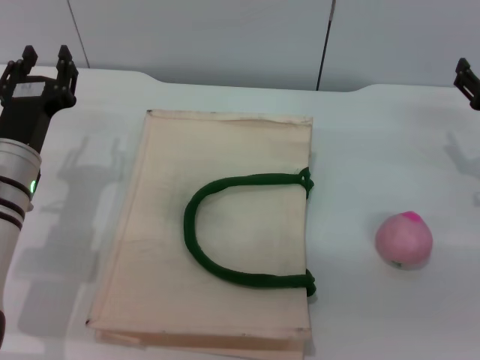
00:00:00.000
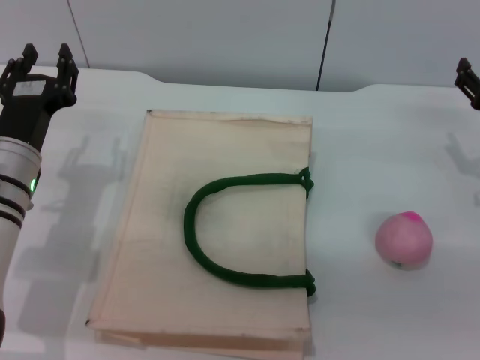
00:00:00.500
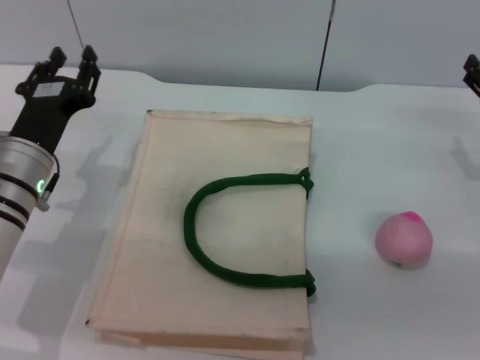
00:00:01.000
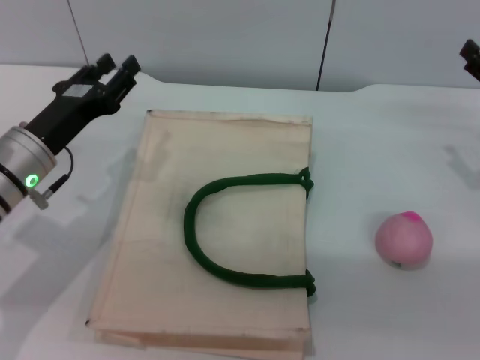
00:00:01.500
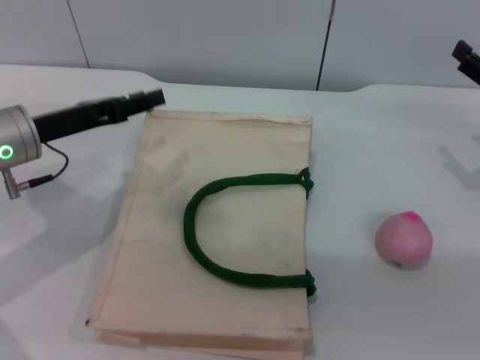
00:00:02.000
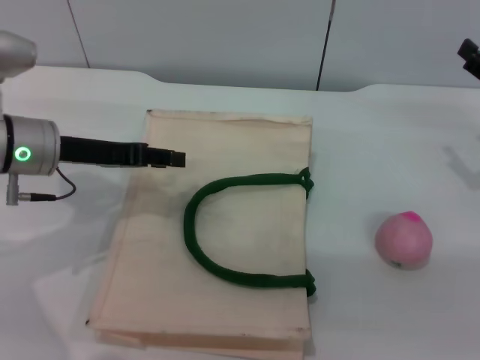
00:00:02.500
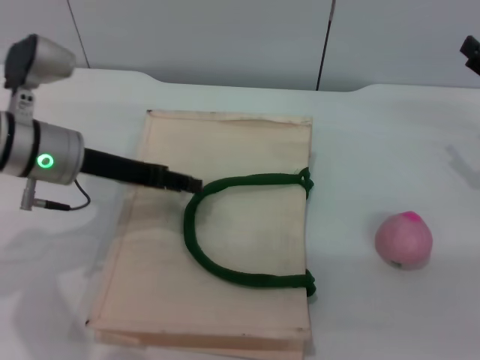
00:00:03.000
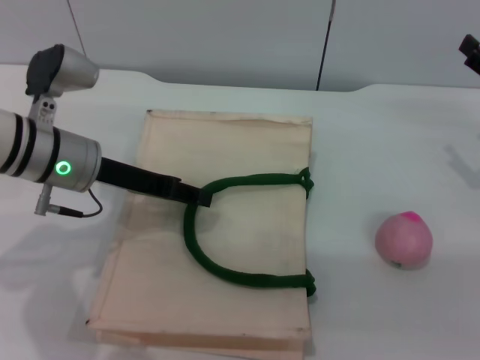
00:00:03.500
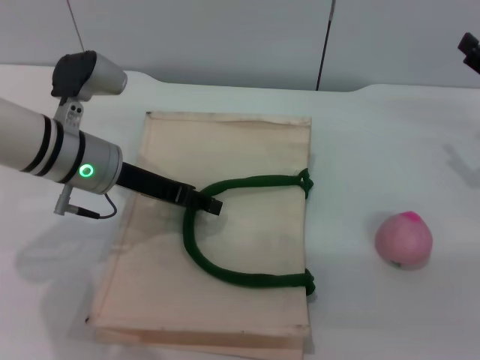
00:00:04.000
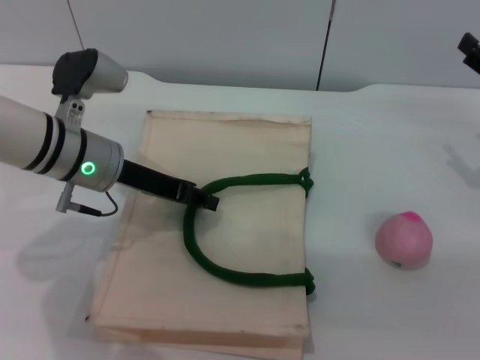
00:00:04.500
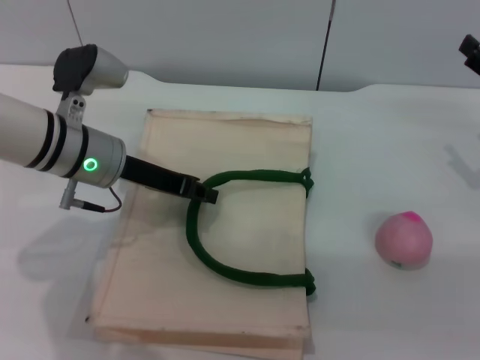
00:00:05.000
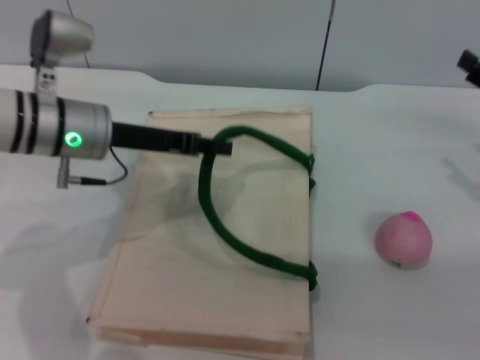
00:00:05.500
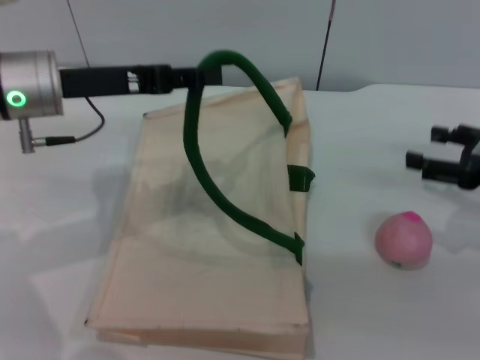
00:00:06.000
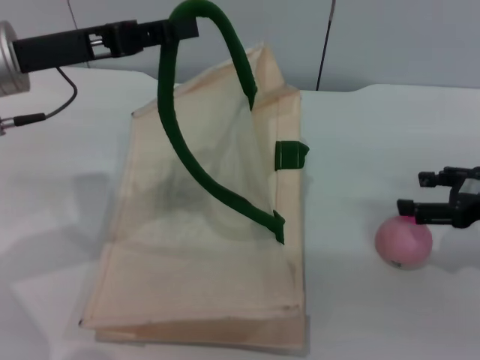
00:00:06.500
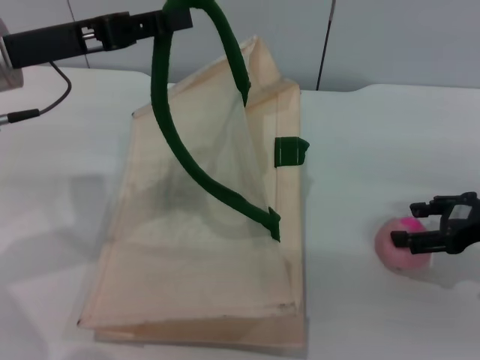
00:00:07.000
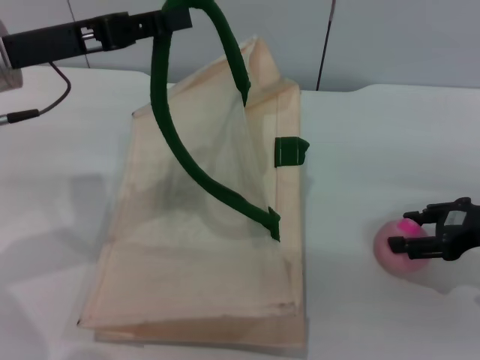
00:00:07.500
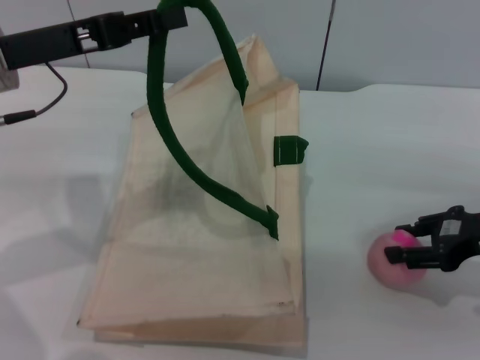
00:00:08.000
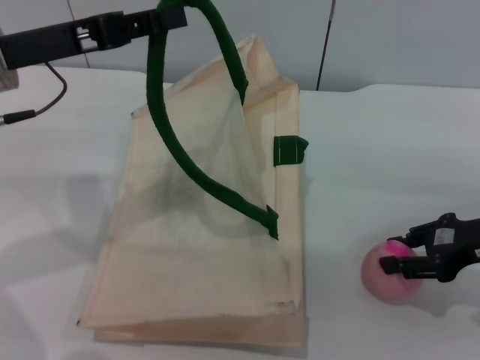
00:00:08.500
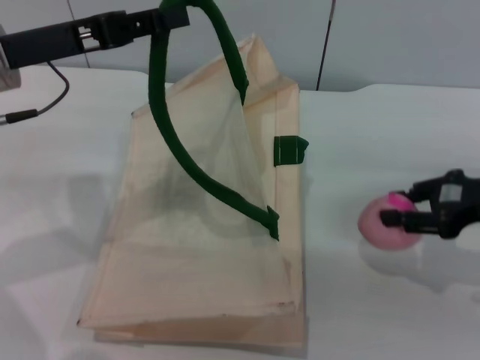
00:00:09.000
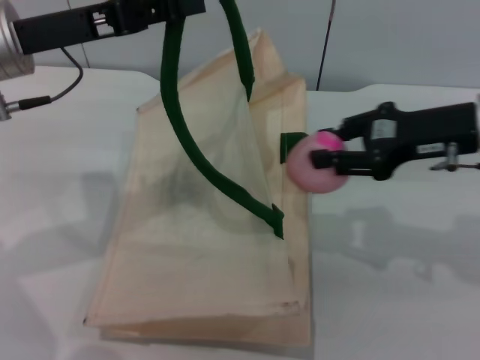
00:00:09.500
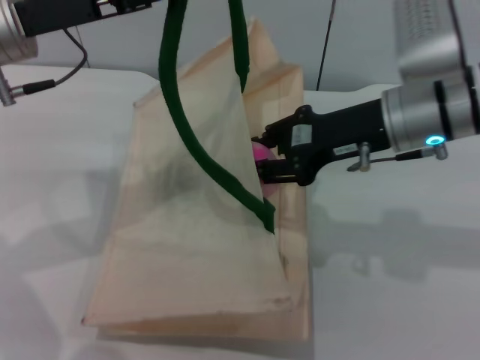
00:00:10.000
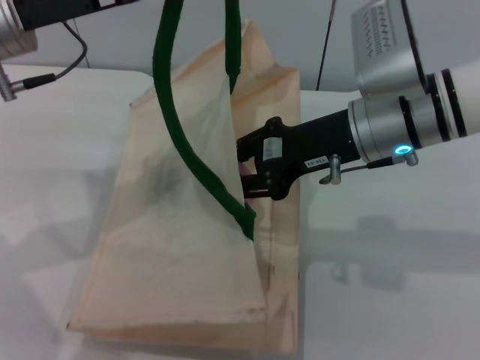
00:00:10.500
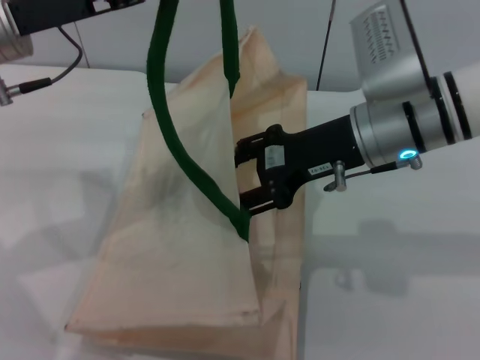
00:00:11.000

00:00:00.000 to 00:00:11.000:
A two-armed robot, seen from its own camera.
Task of the whole recording: pick up the peach from the table and place it in the white handbag.
Step, 00:00:00.000 to 00:00:05.500: Lift the woven bag with the left gripper to open it.
Step, 00:00:06.000 to 00:00:08.500: Pick up the peach with the right gripper.
00:00:00.000 to 00:00:02.000: The left gripper shifts approximately 5 cm upward.
00:00:02.000 to 00:00:03.500: The left gripper is displaced to the right by some 5 cm.
00:00:03.500 to 00:00:05.500: The left gripper closes its fingers.
00:00:05.500 to 00:00:07.500: The left gripper heads upward and to the left, covering about 10 cm.
00:00:07.500 to 00:00:09.000: The right gripper closes up.
00:00:09.000 to 00:00:11.000: The right gripper heads to the left, covering roughly 15 cm.

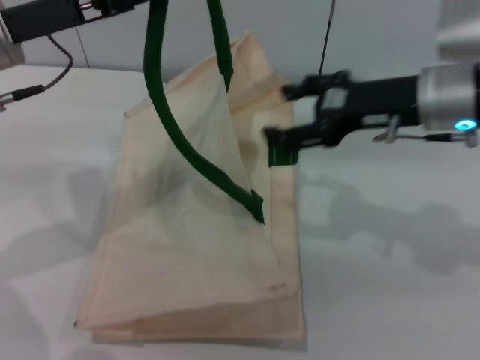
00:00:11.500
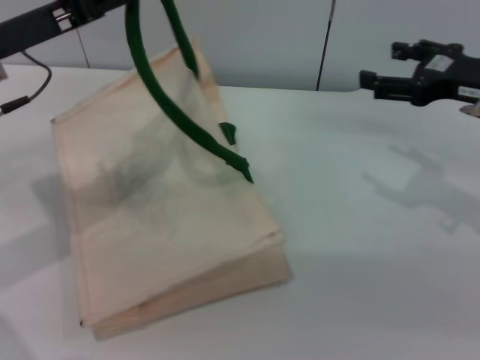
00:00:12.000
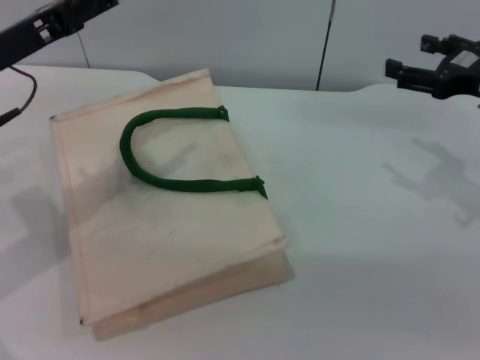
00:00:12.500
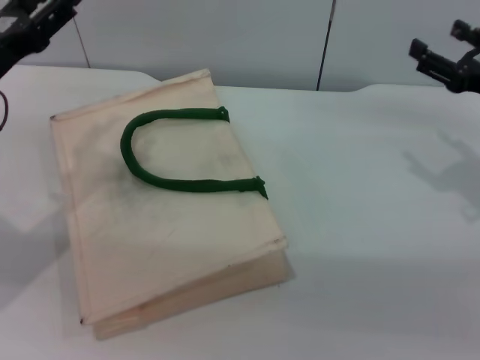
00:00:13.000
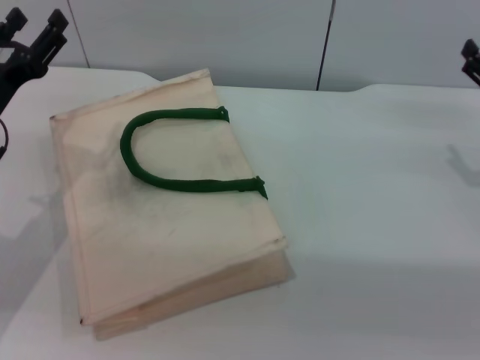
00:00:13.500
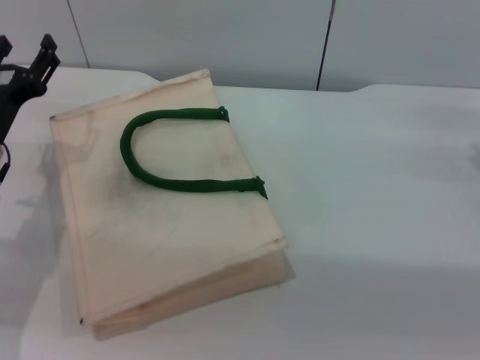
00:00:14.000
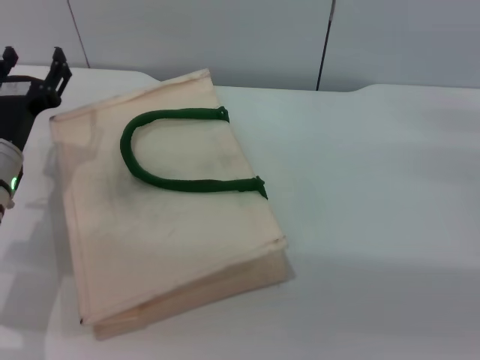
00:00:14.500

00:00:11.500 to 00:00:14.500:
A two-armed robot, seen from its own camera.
Task of the whole recording: pick up the peach from the table and place it in the white handbag.
Step, 00:00:11.500 to 00:00:12.500: Lower the woven bag with the left gripper to close it.
00:00:11.500 to 00:00:13.000: The right gripper travels to the right and downward by roughly 15 cm, while the left gripper is displaced downward by approximately 10 cm, and opens up.
00:00:13.000 to 00:00:14.500: The left gripper heads downward, covering approximately 10 cm; the right gripper moves about 5 cm.
